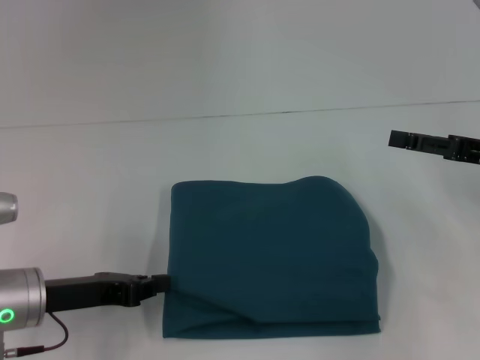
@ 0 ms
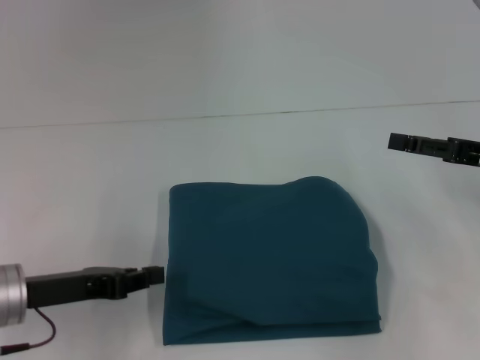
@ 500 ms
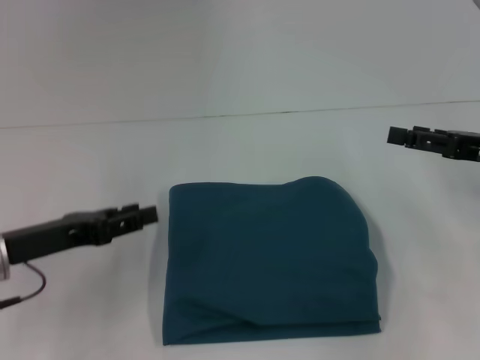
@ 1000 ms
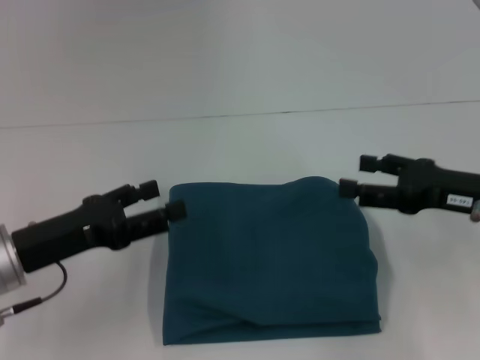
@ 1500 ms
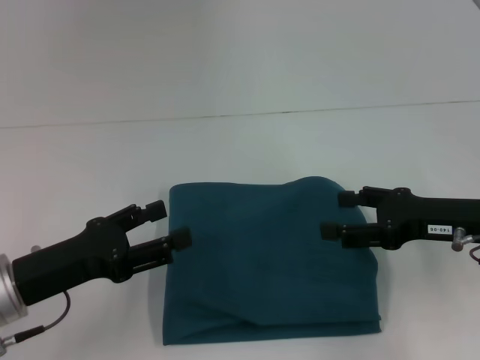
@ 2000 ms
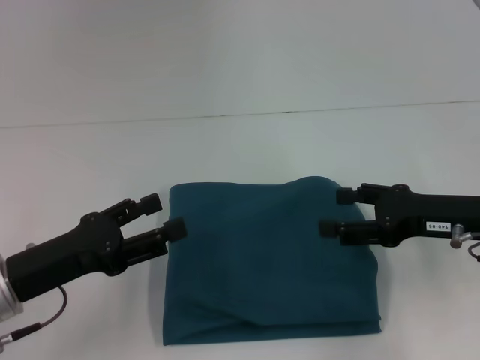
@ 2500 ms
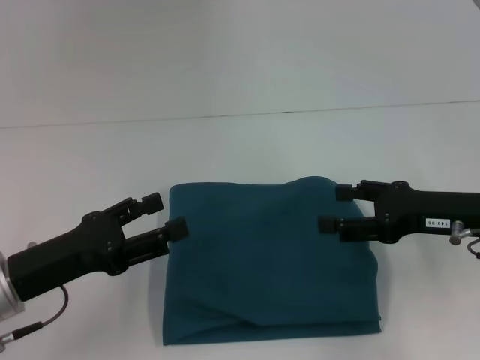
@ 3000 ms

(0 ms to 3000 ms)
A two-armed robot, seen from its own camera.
0 ms - 1500 ms: The right gripper shifts by about 5 cm. The left gripper opens.
1500 ms - 3000 ms: There are only small adjustments of the grippers.
